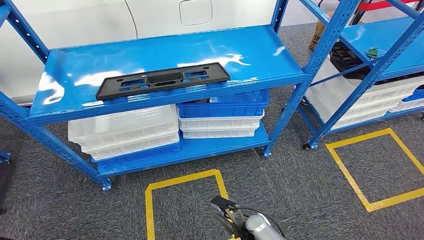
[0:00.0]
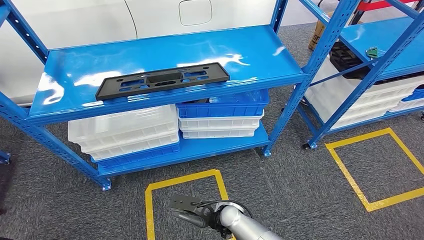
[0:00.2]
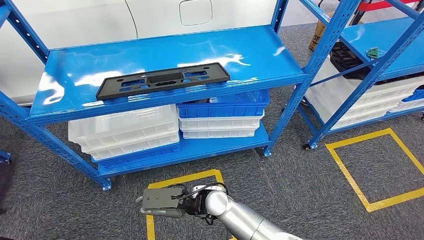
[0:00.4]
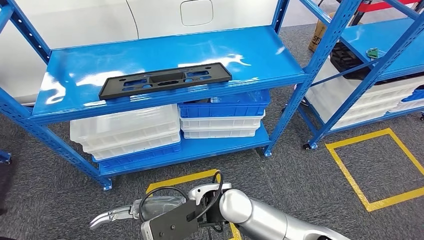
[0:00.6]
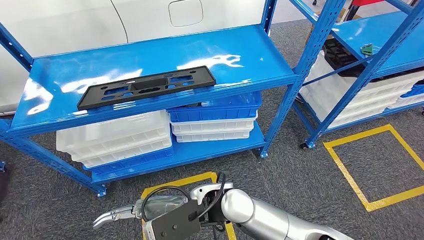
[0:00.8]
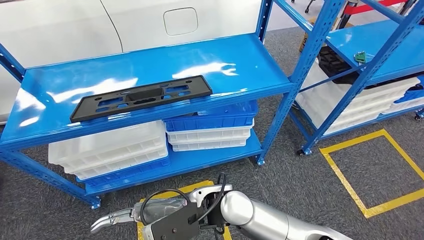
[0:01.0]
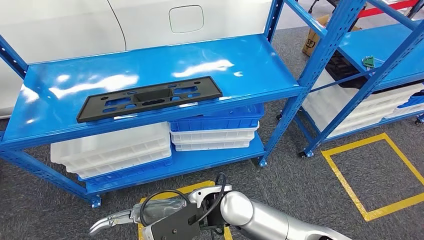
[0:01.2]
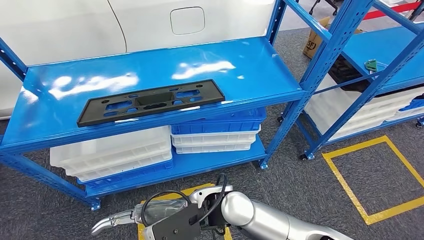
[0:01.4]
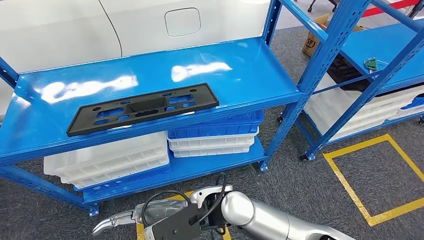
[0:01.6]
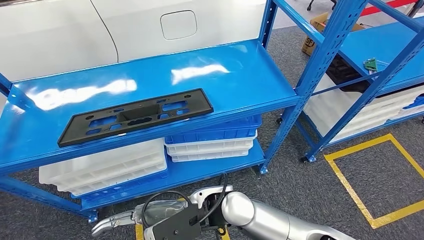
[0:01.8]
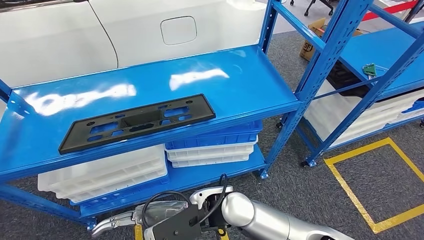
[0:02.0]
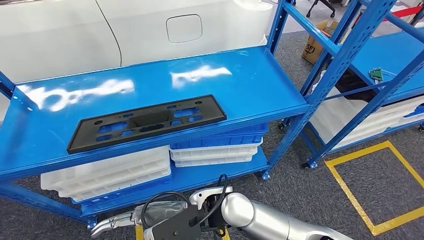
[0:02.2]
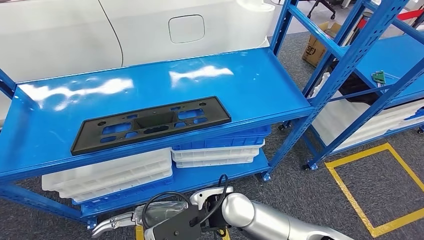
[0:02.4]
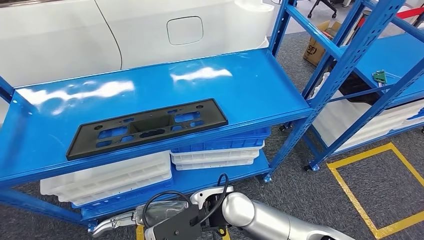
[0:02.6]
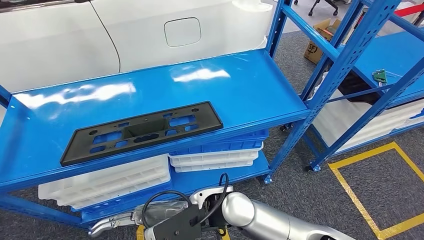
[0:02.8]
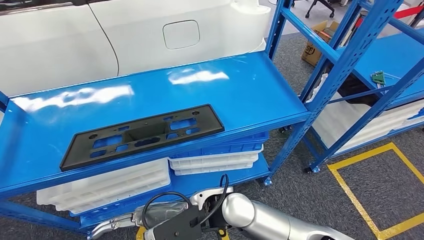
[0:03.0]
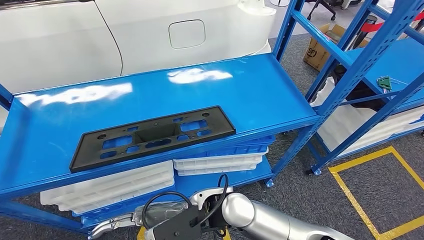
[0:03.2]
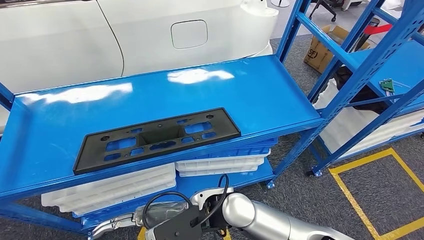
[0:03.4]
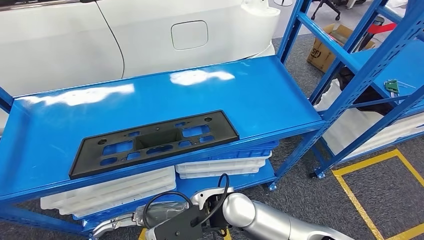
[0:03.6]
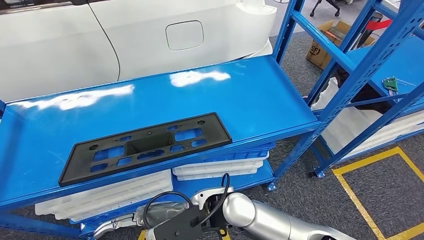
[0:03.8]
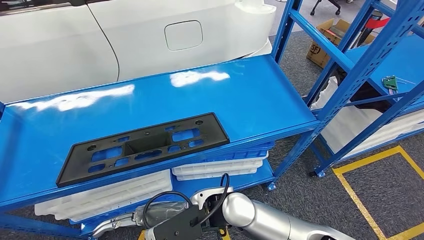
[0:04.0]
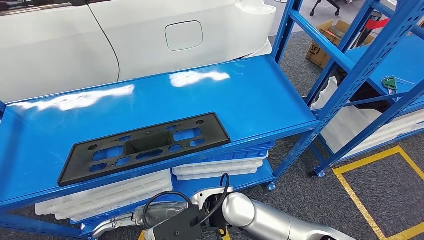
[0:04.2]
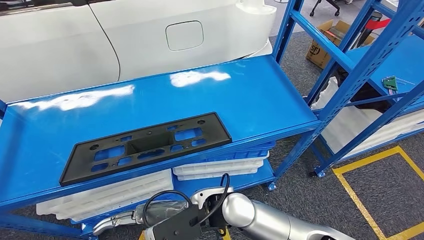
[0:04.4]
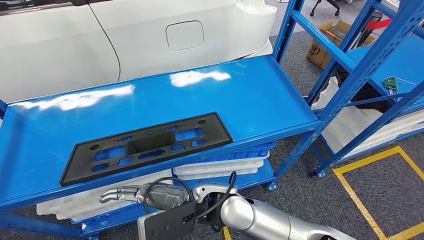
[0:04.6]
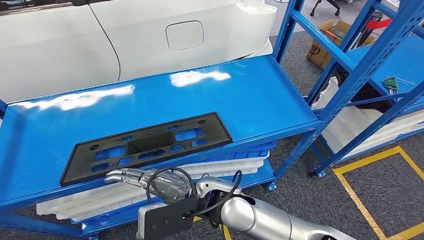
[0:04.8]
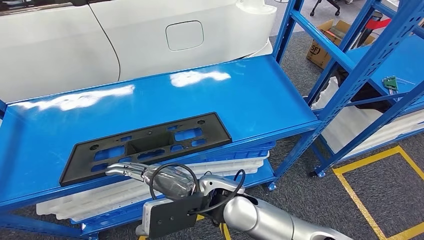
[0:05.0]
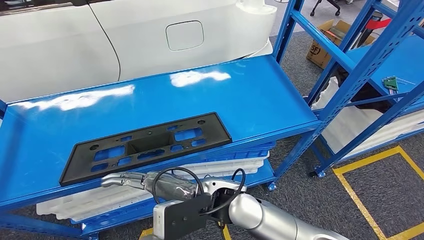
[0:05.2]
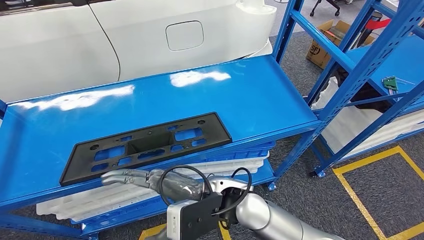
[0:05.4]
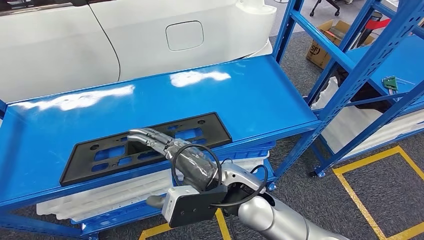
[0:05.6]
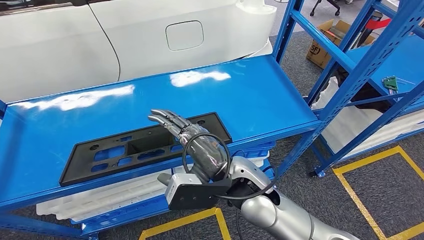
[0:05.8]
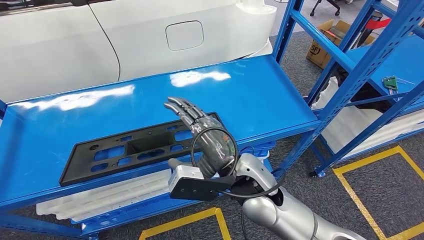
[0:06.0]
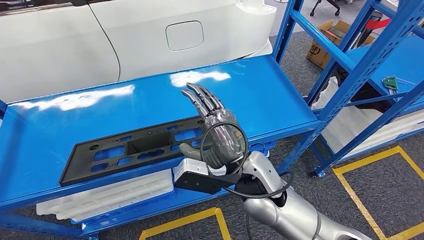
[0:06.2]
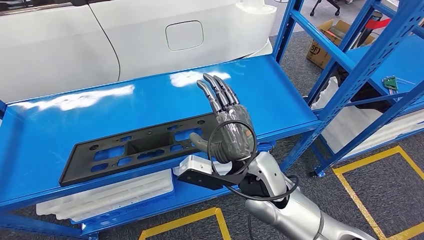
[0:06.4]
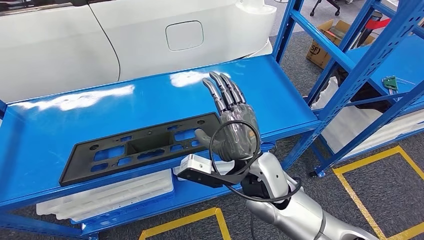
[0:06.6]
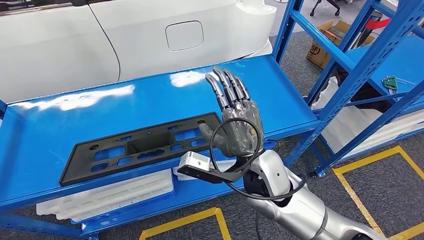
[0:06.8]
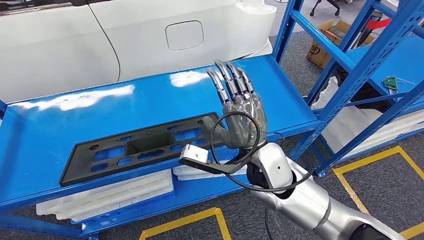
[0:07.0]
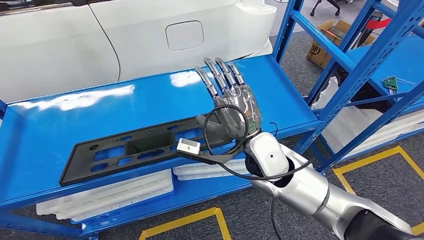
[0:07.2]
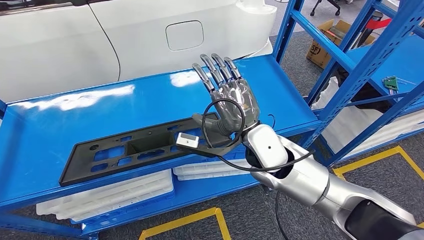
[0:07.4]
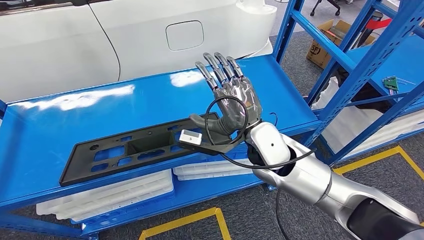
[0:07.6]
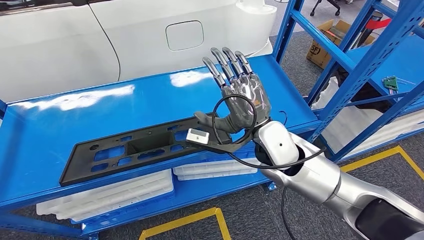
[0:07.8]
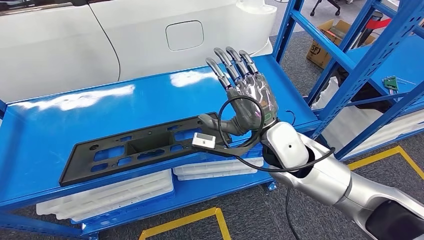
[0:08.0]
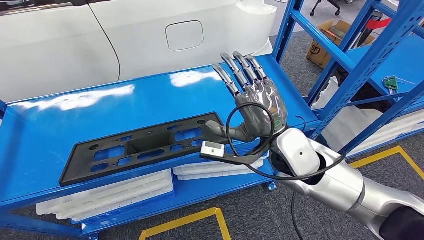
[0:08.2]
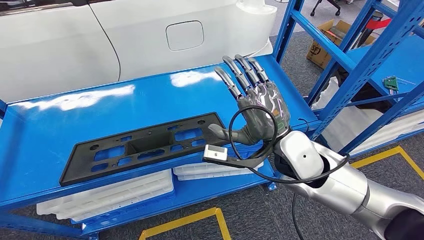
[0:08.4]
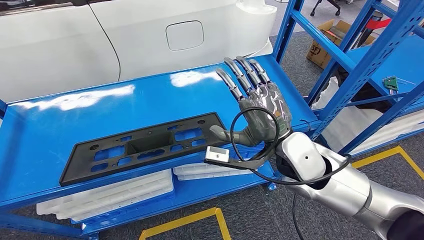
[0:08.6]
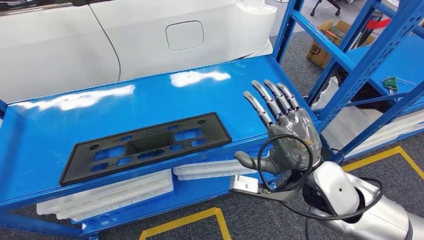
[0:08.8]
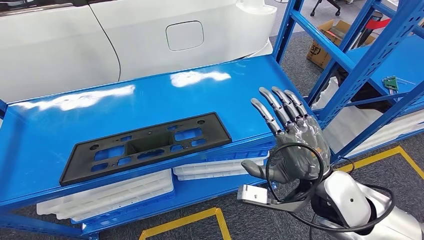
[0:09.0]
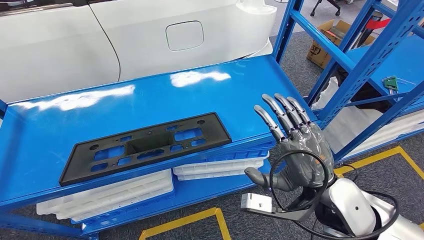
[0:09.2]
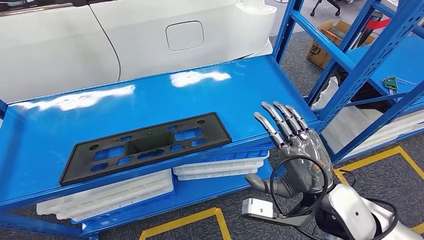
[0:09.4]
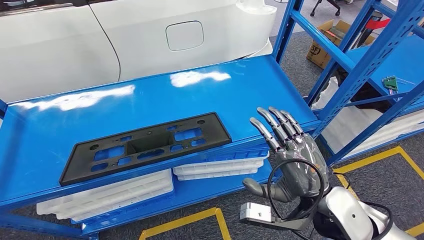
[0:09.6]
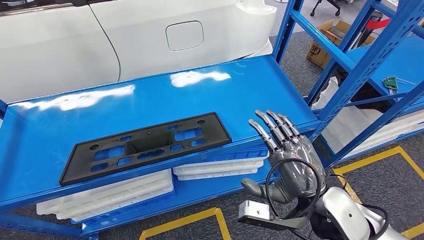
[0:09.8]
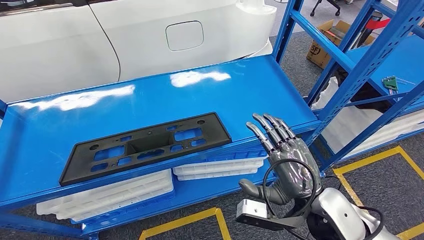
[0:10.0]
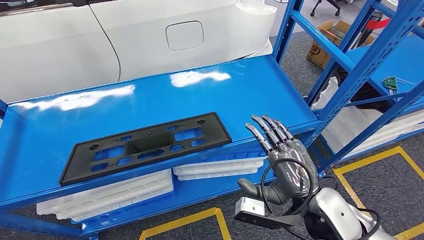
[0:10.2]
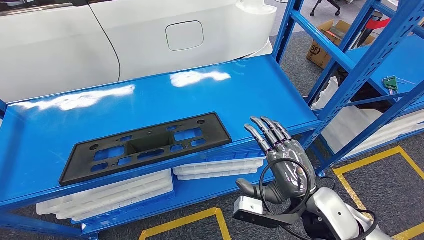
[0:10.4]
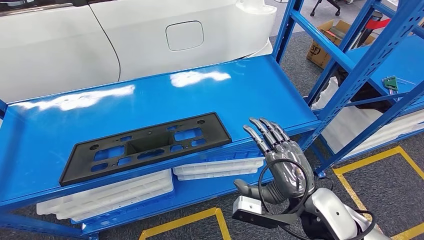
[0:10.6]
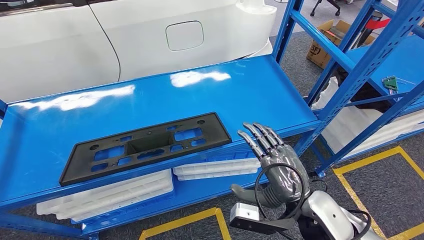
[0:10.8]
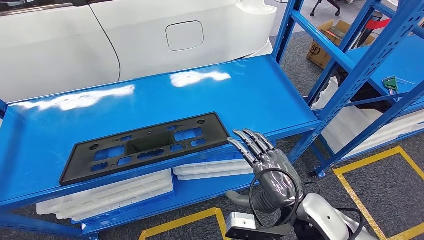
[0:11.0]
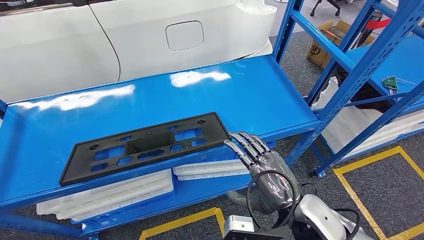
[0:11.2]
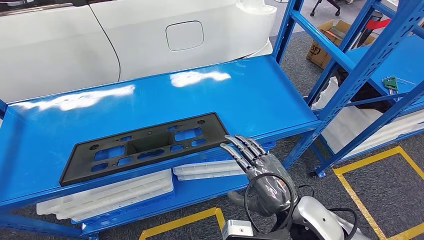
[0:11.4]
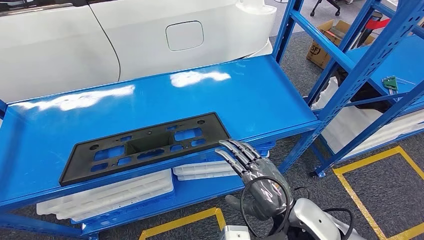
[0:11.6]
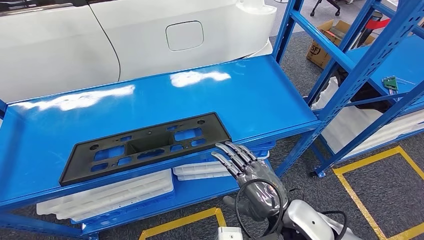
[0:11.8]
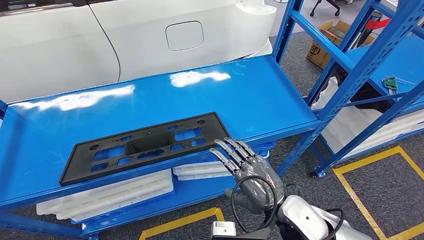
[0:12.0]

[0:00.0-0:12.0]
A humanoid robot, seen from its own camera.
0:04.4 to 0:06.0: The right hand shifts approximately 5 cm to the right.
0:06.0 to 0:07.6: The right hand moves to the right and forward, about 10 cm.
0:07.6 to 0:09.0: The right hand shifts some 15 cm backward and to the right.
0:09.0 to 0:10.4: The right hand shifts by approximately 5 cm.
0:10.4 to 0:12.0: The right hand ends up some 5 cm from where it was.

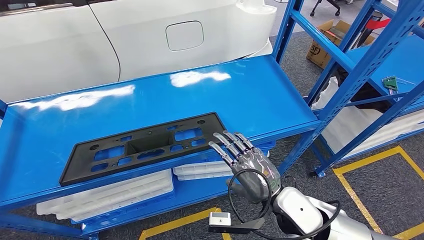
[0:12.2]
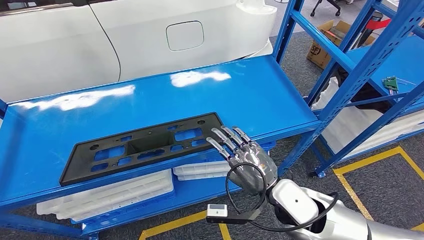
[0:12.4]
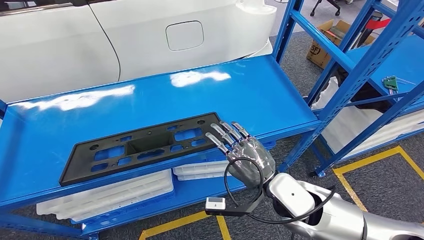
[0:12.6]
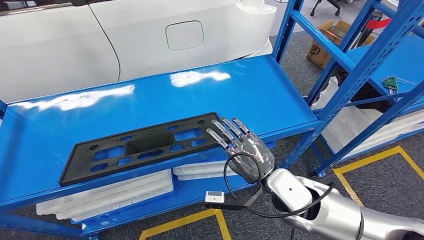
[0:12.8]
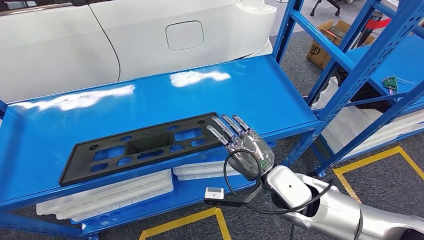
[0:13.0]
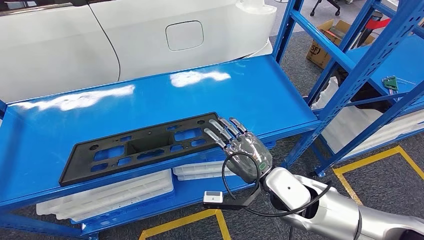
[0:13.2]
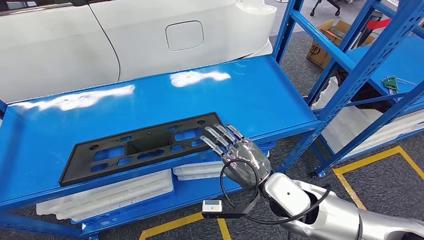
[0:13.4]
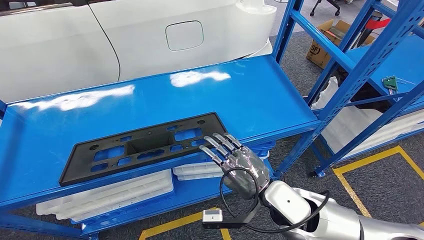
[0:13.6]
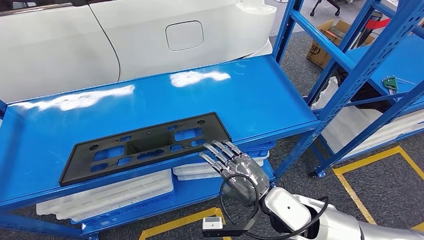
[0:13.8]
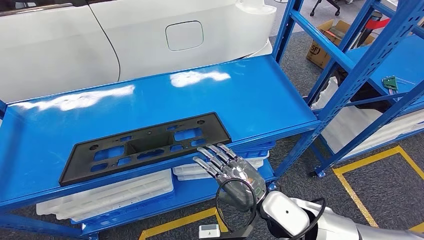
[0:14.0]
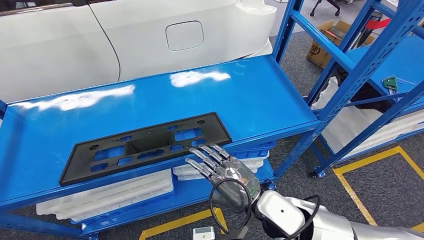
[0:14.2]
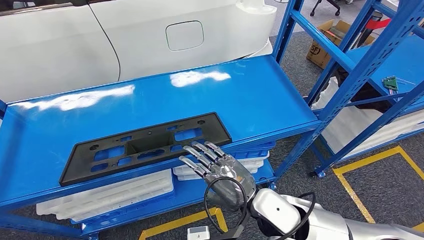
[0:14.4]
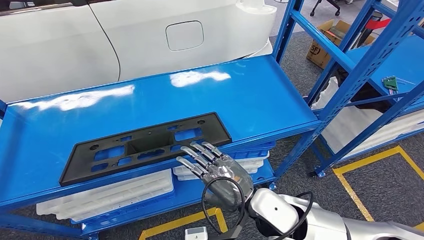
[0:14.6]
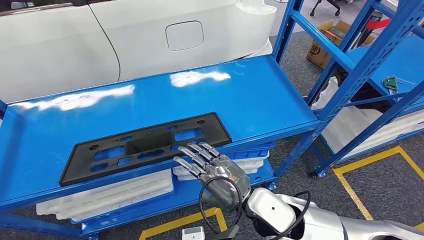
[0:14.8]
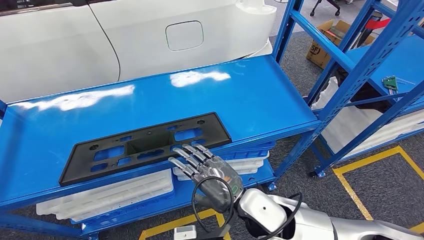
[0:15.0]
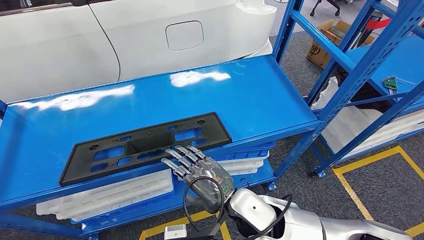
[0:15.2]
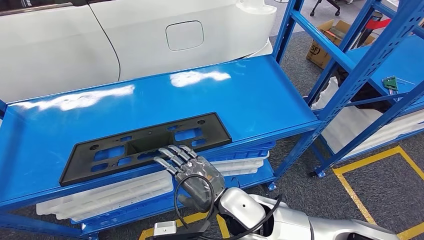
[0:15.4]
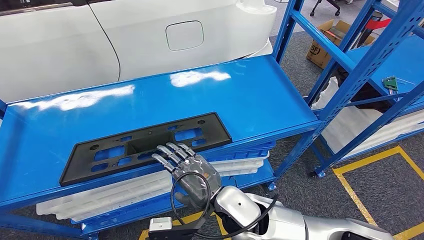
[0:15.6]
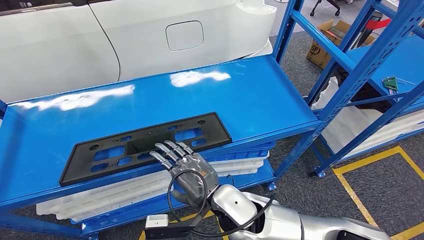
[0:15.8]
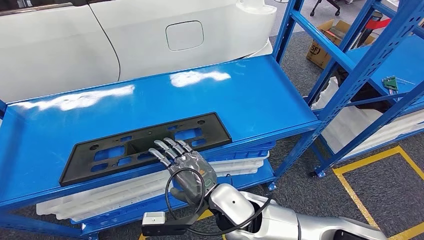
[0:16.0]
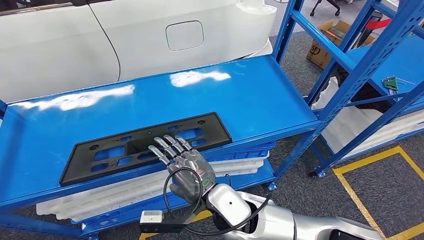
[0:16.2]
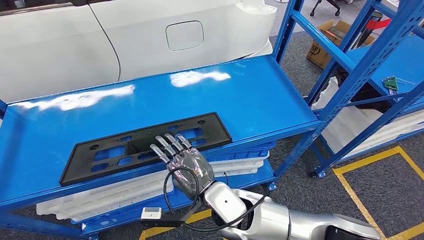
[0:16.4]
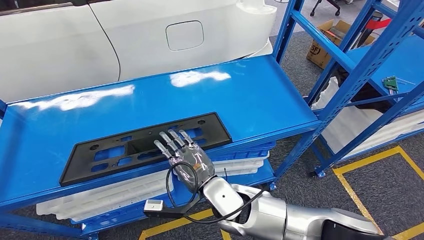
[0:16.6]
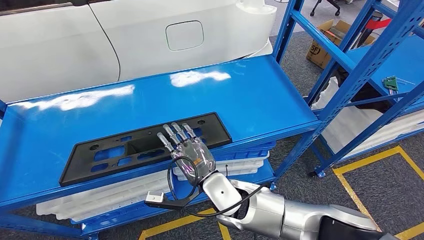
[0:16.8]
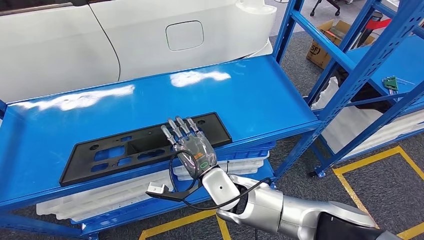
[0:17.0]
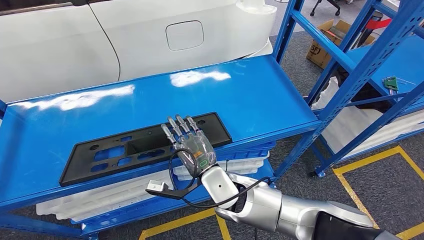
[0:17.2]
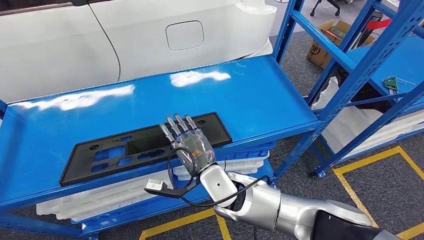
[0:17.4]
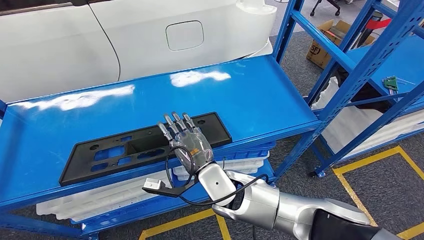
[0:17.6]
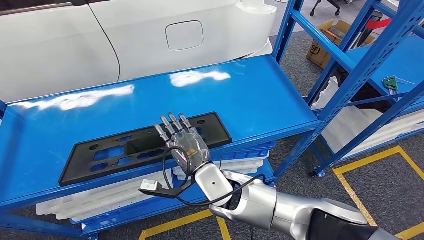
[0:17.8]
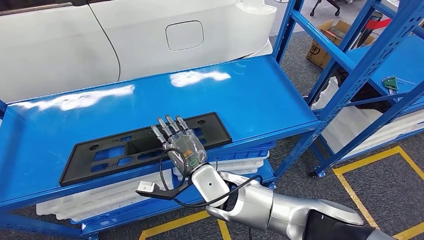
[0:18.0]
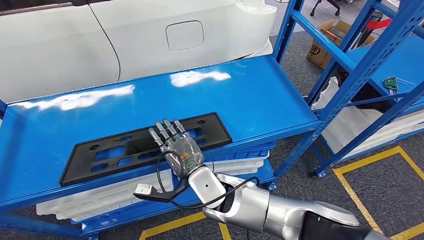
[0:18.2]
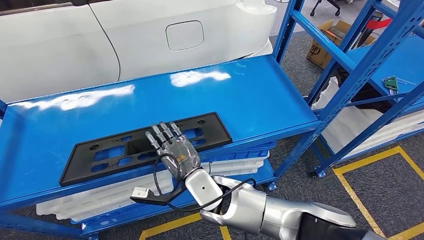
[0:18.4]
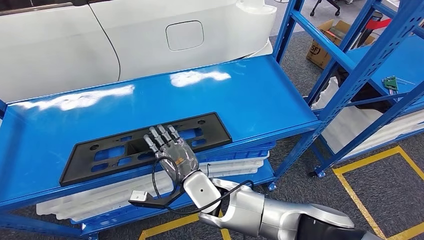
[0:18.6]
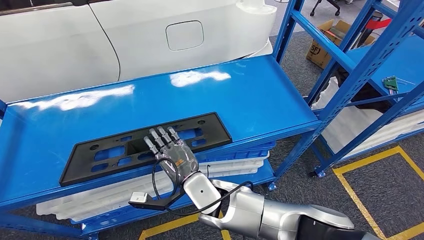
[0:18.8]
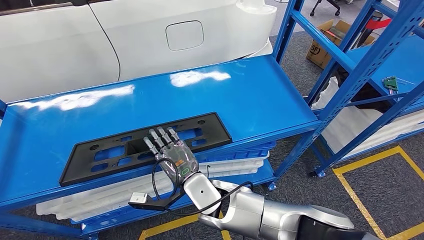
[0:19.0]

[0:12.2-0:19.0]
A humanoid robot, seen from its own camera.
0:12.2 to 0:13.6: The hands make only small movements.
0:13.6 to 0:15.0: The right hand moves to the left, some 10 cm.
0:15.0 to 0:16.2: The right hand travels to the left by roughly 5 cm.
0:16.2 to 0:17.6: The right hand moves forward, about 5 cm.
0:17.6 to 0:19.0: There are only small adjustments of the hands.
